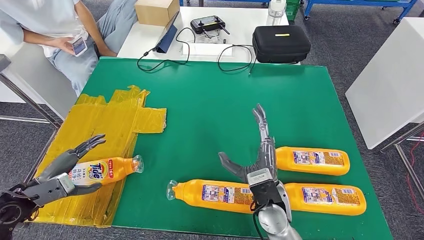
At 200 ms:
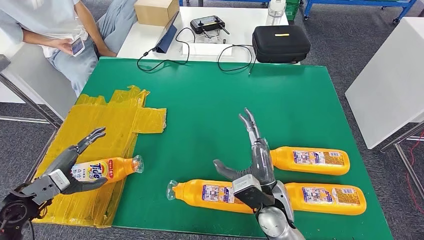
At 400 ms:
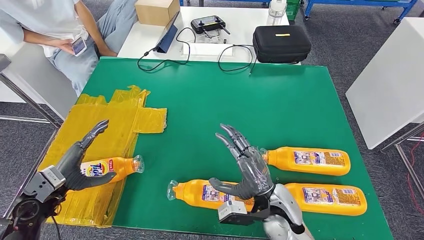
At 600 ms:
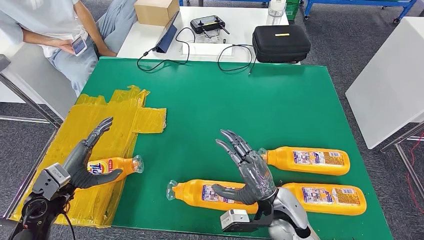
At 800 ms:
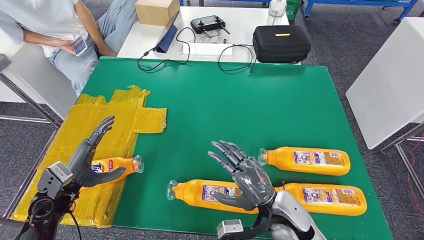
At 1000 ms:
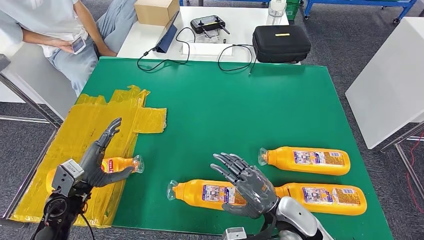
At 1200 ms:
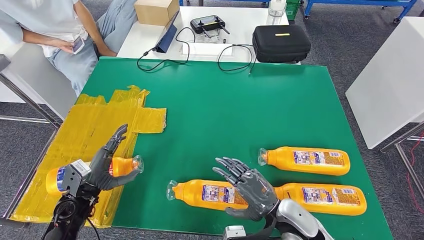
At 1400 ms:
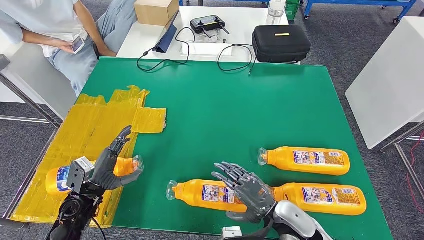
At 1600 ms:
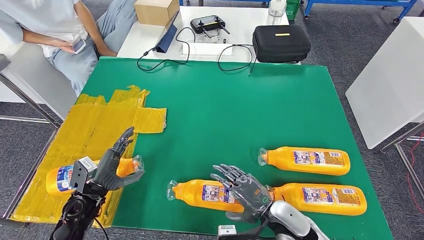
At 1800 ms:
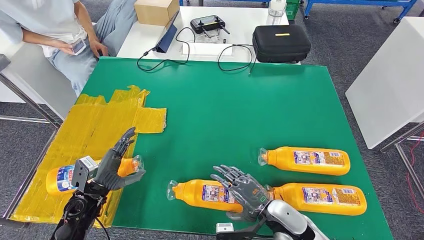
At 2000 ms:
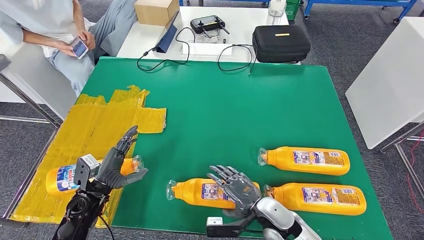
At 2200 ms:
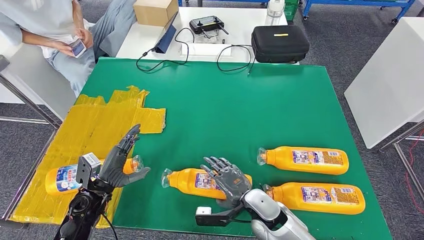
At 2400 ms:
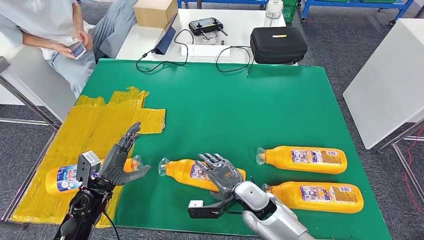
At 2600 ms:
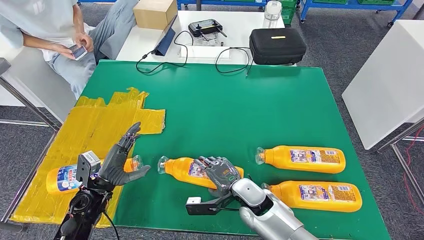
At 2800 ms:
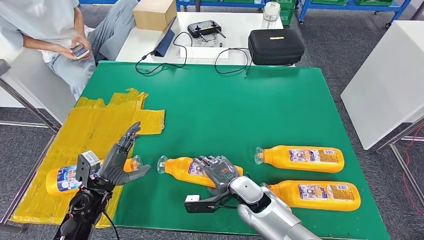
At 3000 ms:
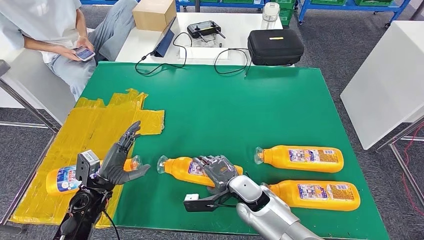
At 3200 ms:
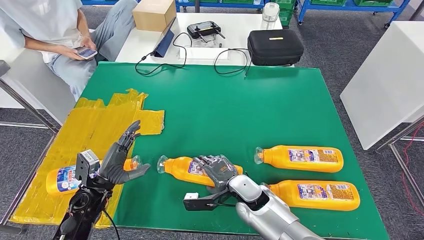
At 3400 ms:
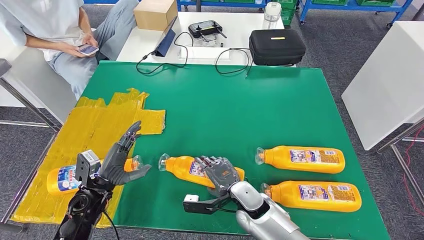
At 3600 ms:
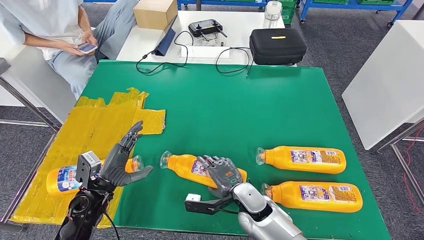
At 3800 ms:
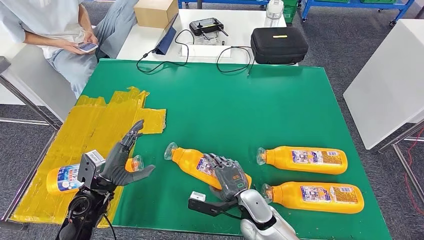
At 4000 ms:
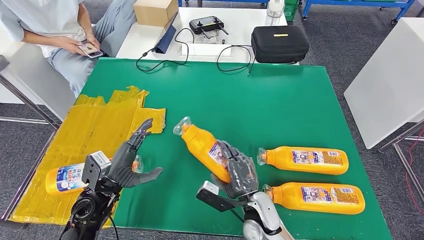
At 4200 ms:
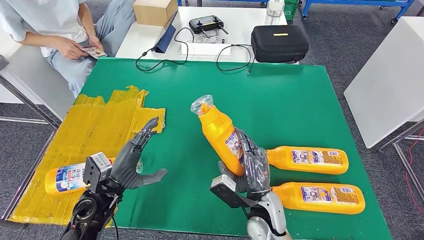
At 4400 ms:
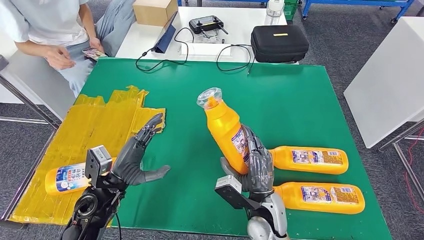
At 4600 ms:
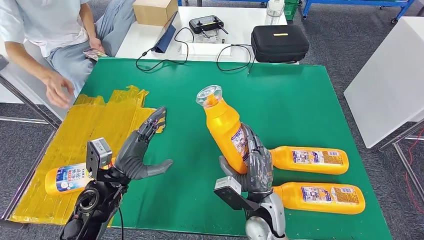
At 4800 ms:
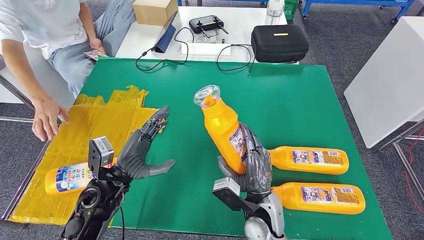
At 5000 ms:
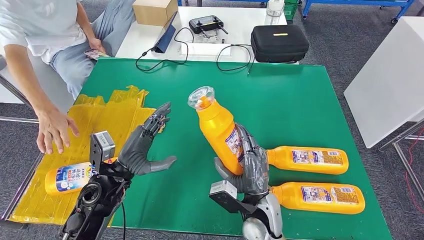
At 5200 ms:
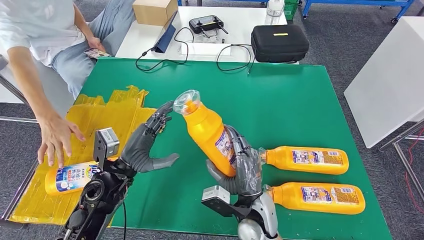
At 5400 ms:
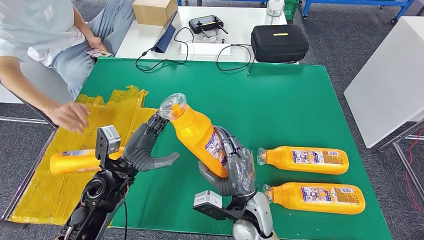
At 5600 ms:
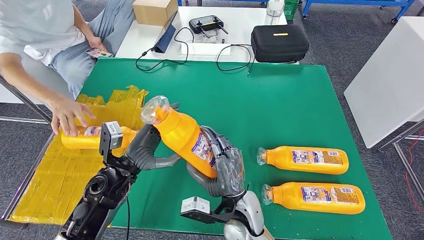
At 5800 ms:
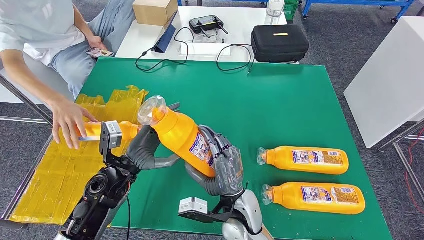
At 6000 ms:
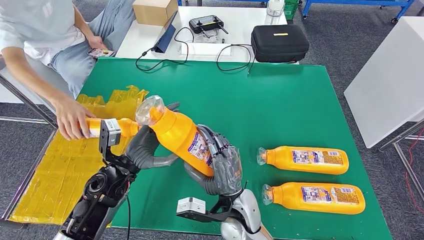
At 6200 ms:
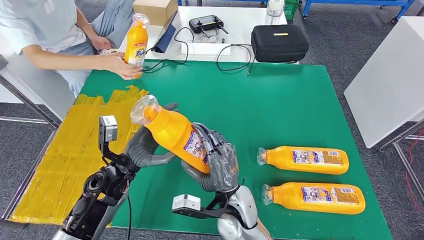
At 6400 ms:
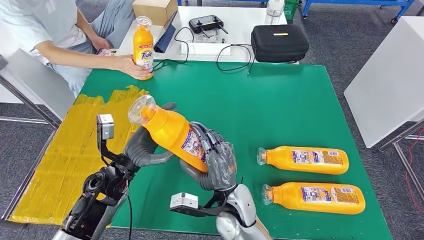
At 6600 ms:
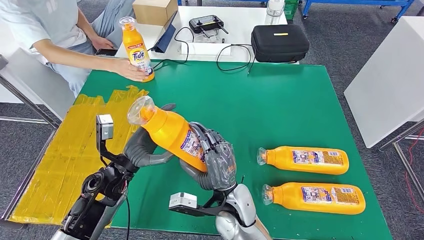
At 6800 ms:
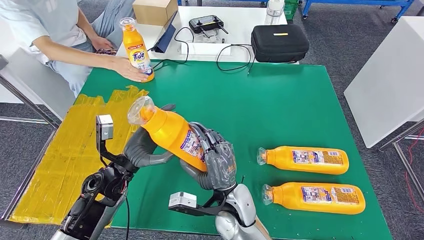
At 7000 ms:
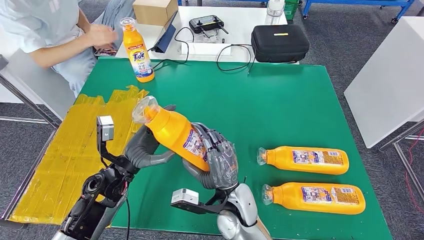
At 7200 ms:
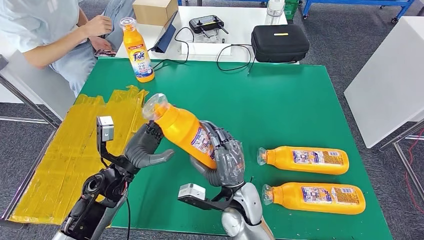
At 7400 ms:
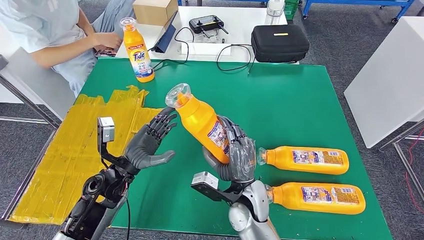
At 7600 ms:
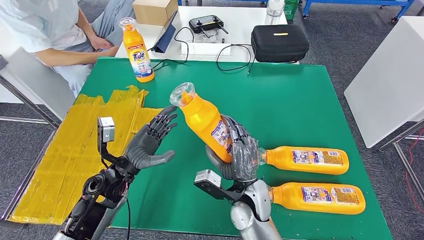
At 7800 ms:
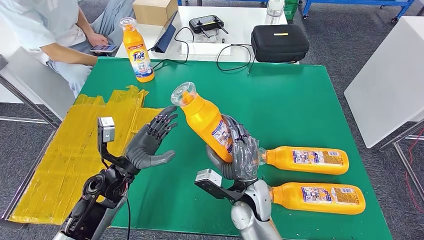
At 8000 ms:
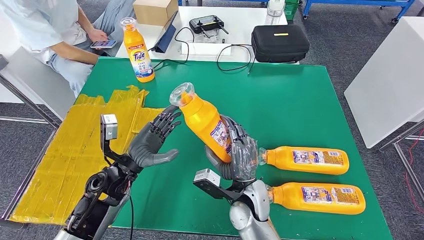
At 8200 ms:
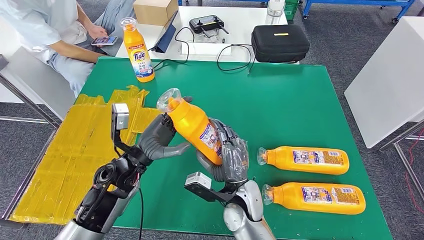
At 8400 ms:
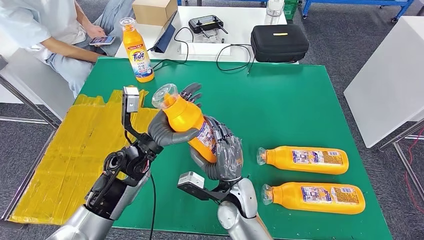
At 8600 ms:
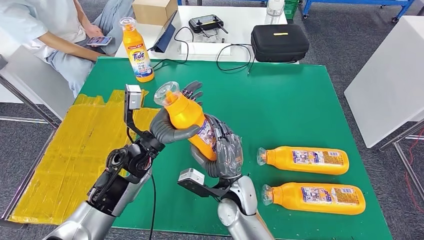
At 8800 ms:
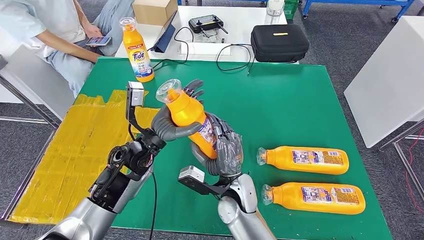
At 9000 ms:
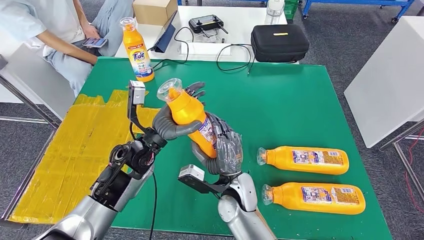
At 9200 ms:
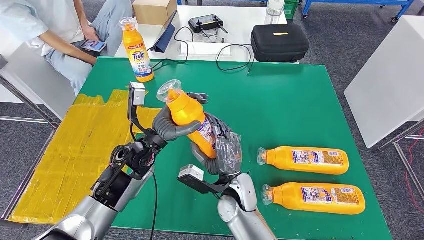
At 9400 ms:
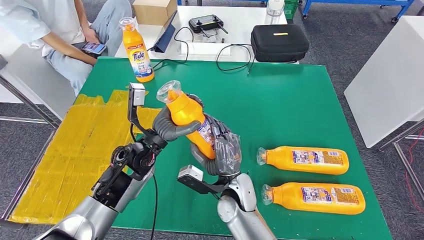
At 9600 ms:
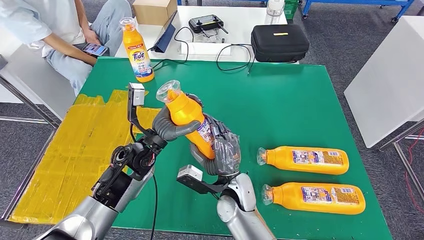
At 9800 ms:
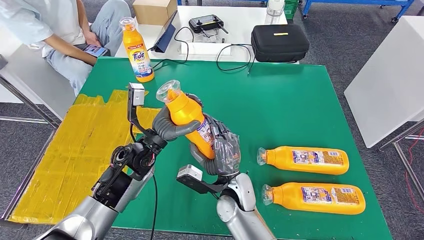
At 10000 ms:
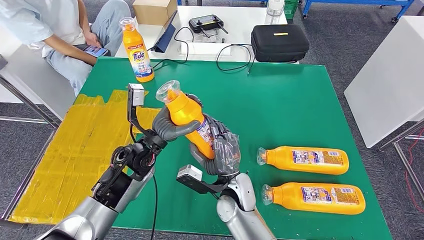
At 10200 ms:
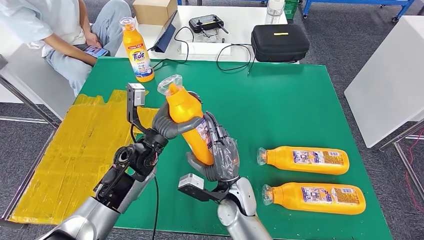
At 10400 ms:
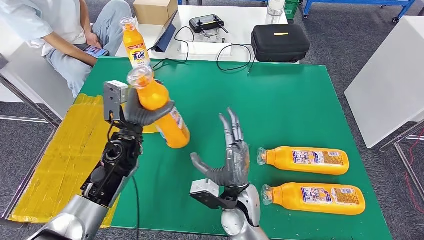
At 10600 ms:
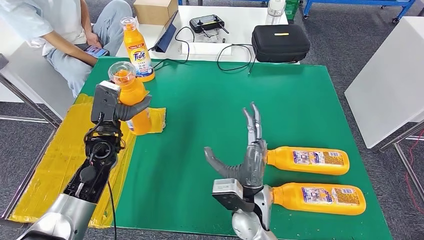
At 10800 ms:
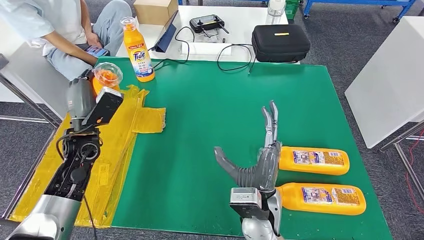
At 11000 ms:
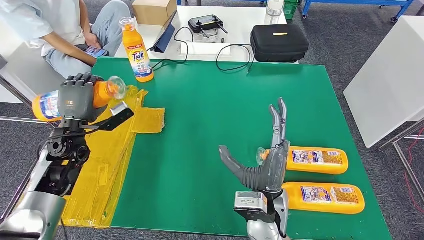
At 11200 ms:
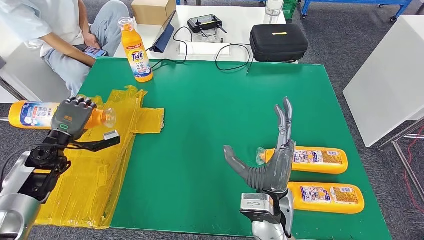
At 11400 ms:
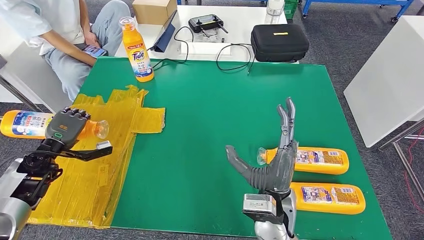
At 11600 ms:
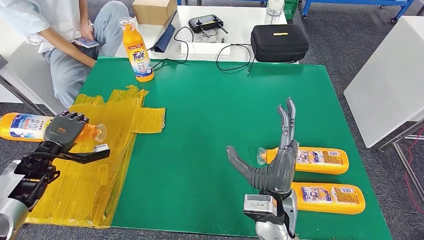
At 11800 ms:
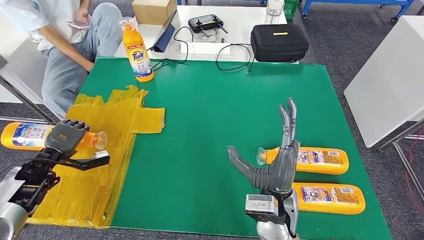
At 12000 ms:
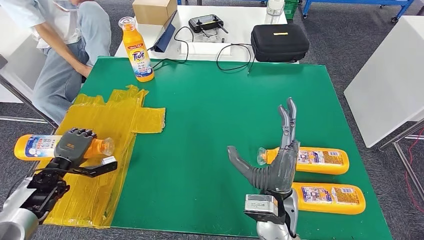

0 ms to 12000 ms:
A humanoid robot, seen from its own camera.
Step, 0 ms to 6200 ms: Pick up the bottle from the table.
0 ms to 1600 ms: The right hand heads to the right, covering some 5 cm. The left hand shifts roughly 15 cm to the right and downward.
4400 ms to 6000 ms: The right hand moves to the left, some 5 cm.
6000 ms to 7600 ms: The hands stay close to where they were, moving slightly.
7600 ms to 9000 ms: The left hand moves to the right and forward, approximately 10 cm.
9000 ms to 10400 ms: The left hand moves approximately 5 cm.

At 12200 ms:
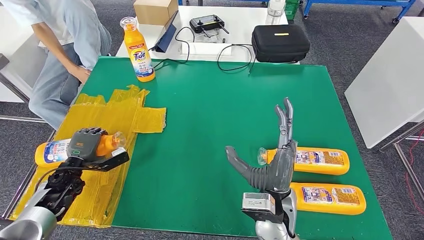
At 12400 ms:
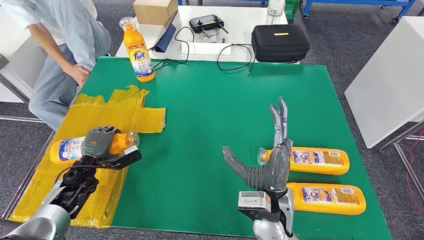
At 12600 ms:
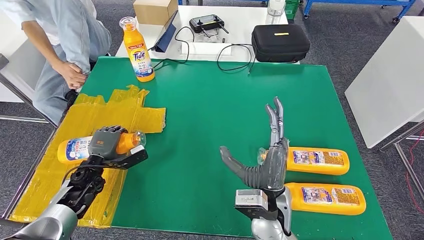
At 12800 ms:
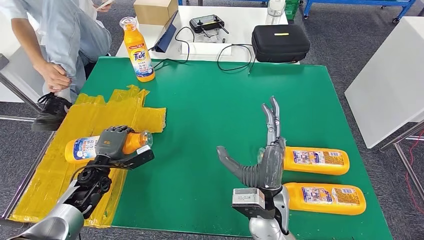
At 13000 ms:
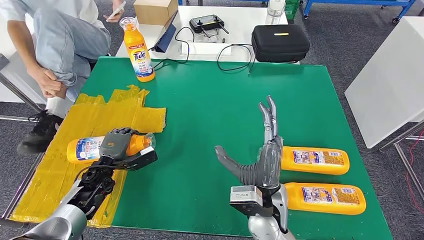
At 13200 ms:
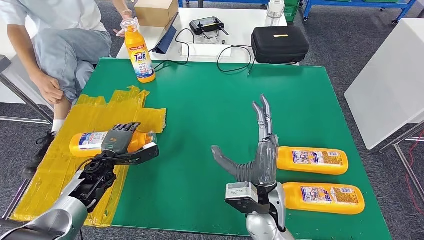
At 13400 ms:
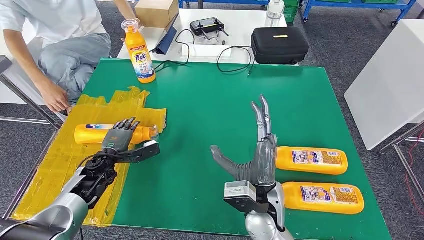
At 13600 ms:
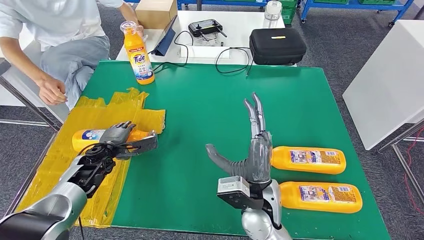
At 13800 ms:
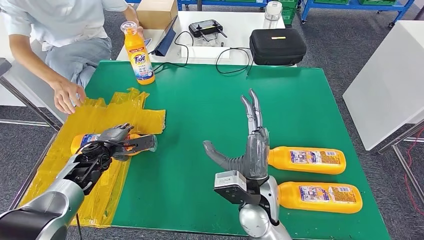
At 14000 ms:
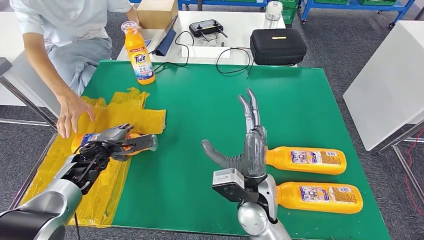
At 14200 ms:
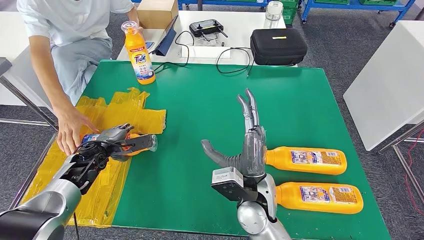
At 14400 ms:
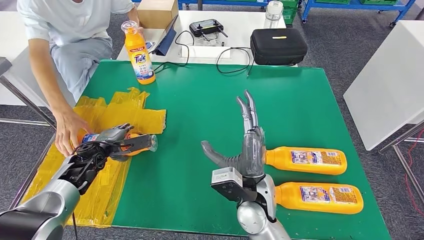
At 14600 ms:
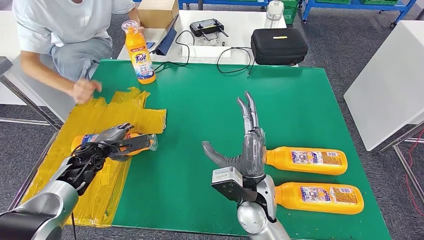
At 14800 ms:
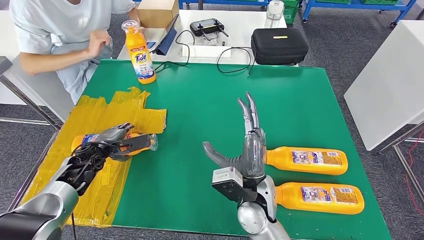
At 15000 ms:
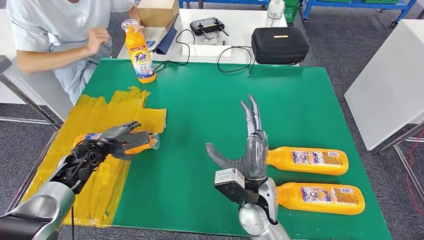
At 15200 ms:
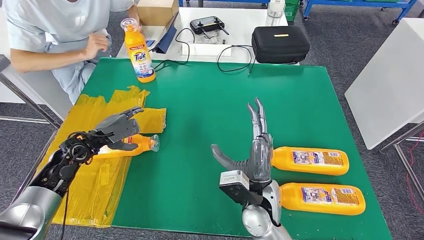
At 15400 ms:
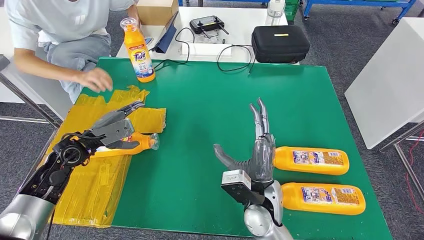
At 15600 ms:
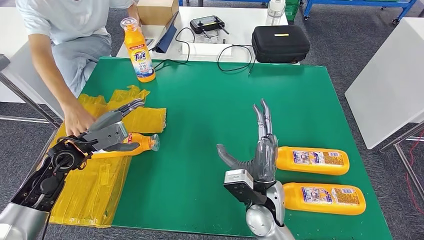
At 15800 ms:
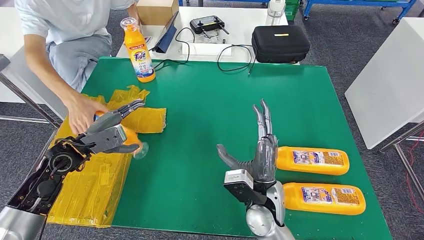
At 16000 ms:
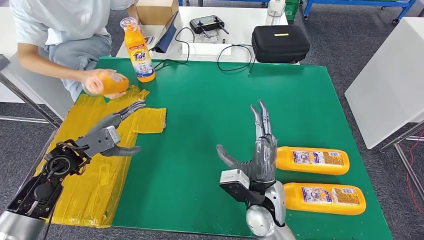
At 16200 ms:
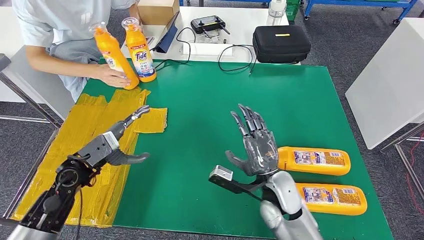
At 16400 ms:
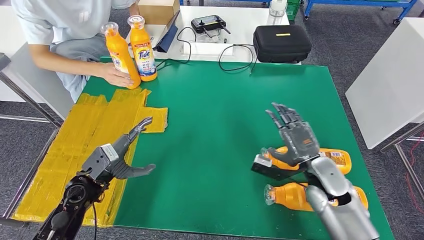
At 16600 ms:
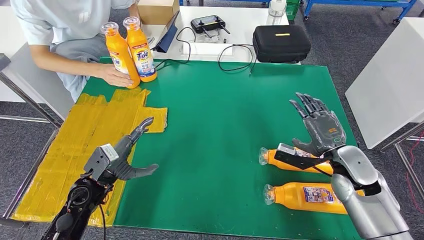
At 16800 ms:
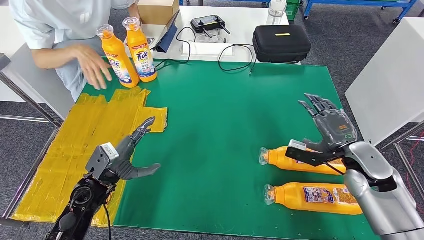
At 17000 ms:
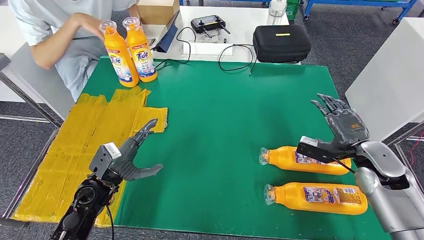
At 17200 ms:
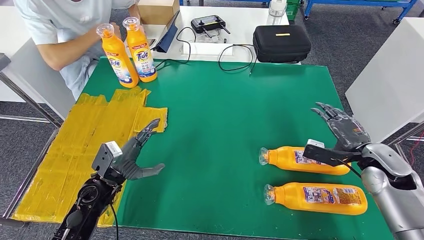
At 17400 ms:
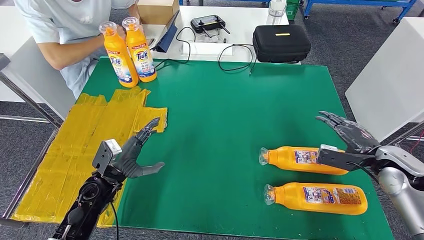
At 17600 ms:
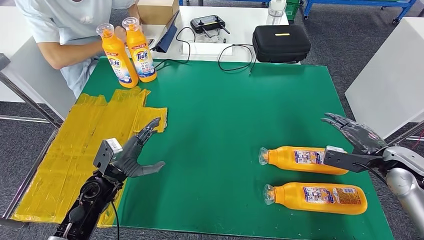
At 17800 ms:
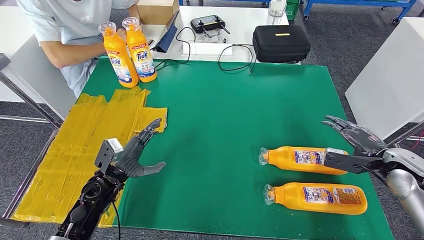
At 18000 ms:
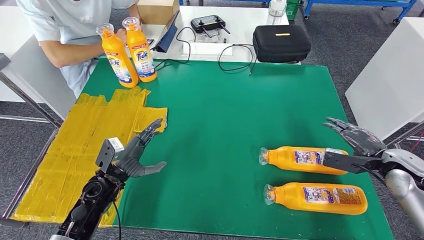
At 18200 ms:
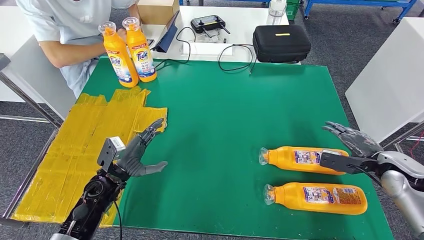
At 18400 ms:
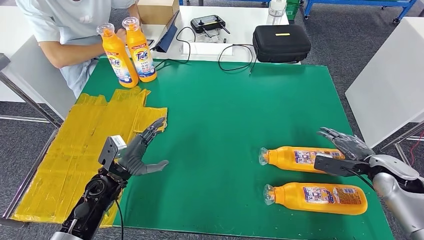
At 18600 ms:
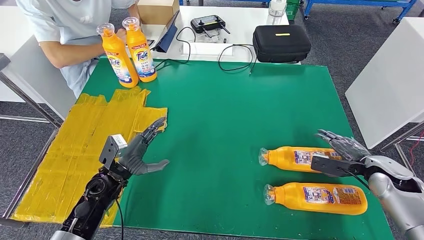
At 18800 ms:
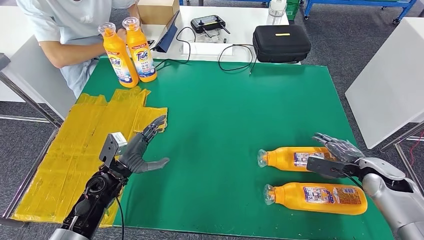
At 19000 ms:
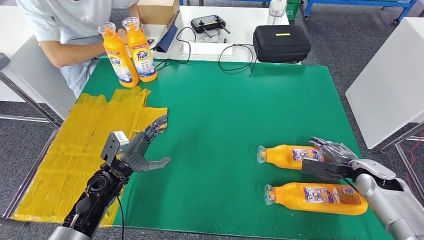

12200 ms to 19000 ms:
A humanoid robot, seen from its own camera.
17600 ms to 19000 ms: The right hand is displaced downward by roughly 10 cm.
